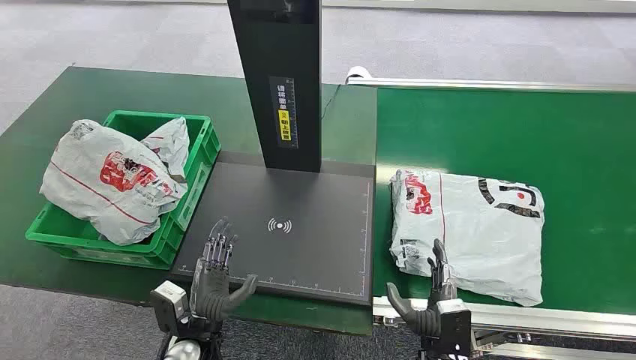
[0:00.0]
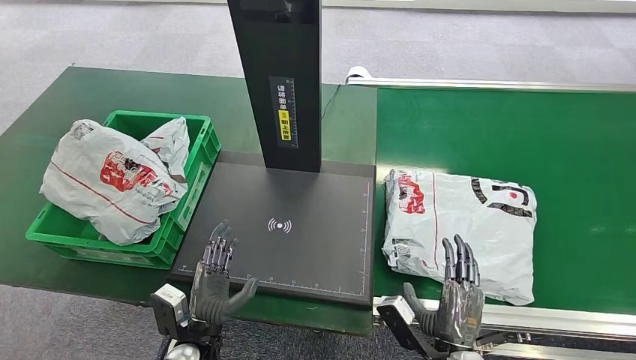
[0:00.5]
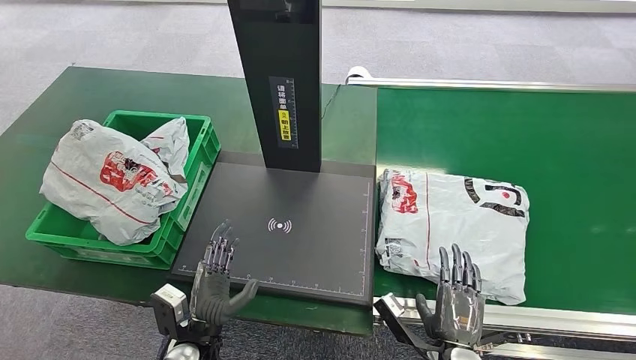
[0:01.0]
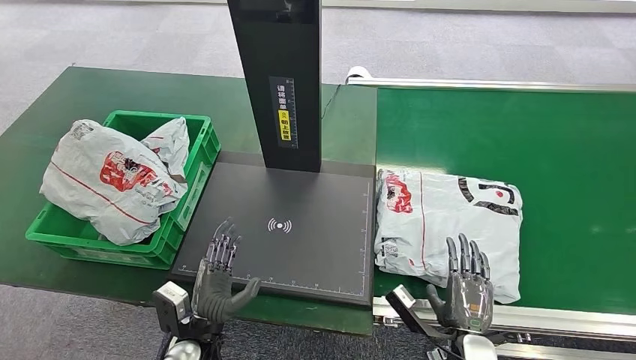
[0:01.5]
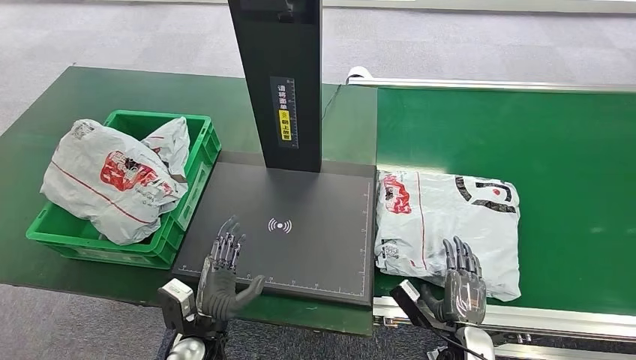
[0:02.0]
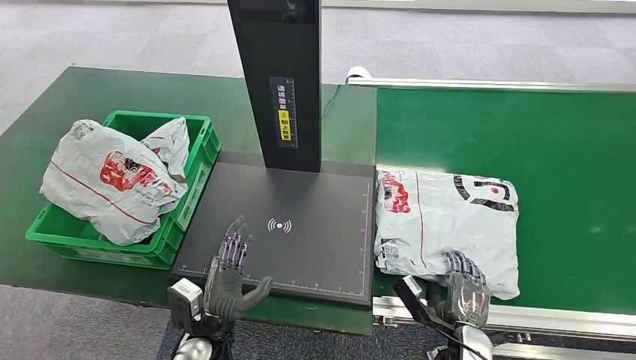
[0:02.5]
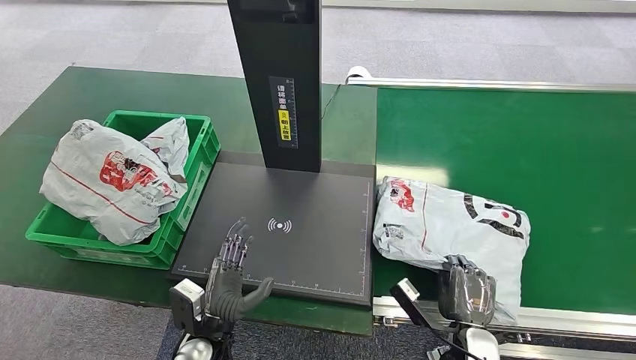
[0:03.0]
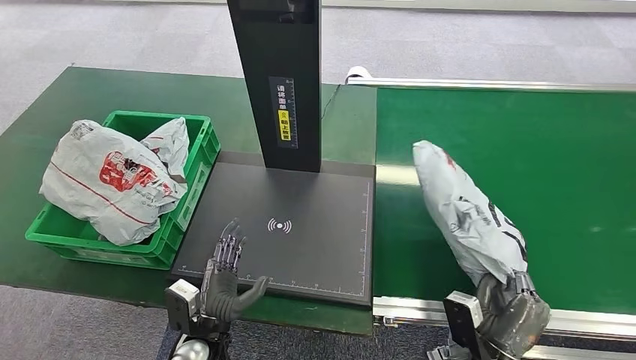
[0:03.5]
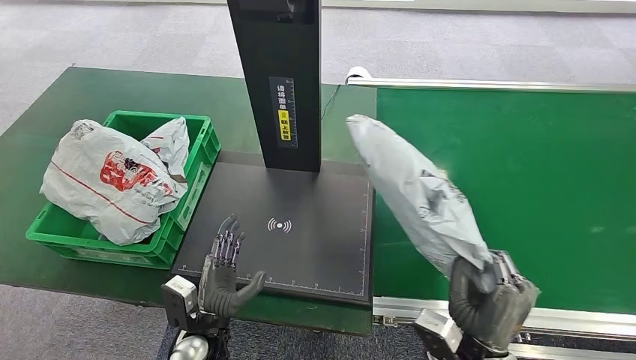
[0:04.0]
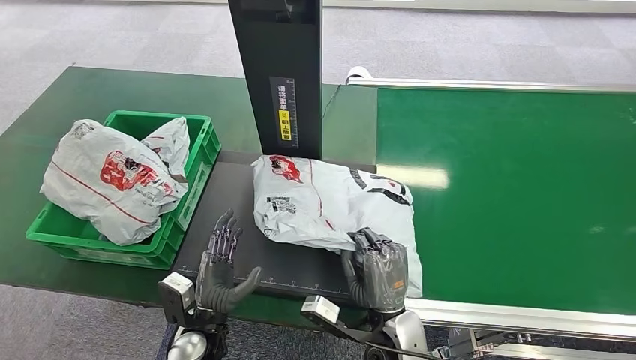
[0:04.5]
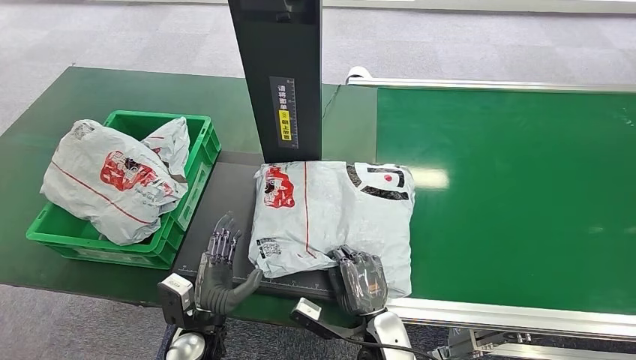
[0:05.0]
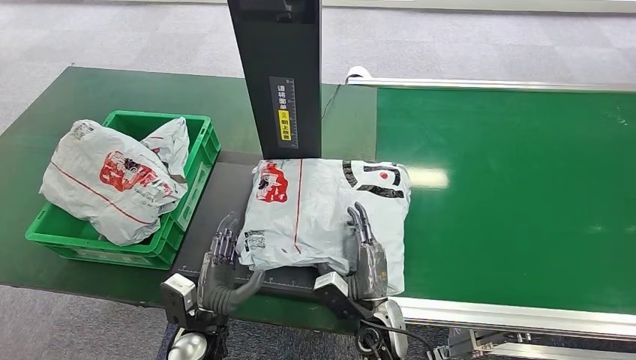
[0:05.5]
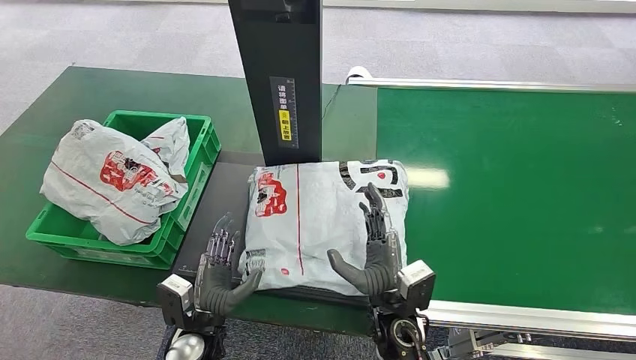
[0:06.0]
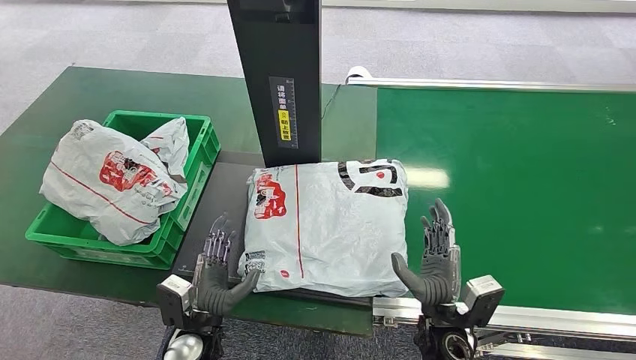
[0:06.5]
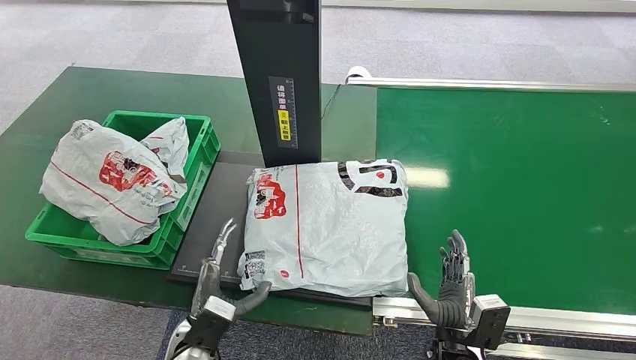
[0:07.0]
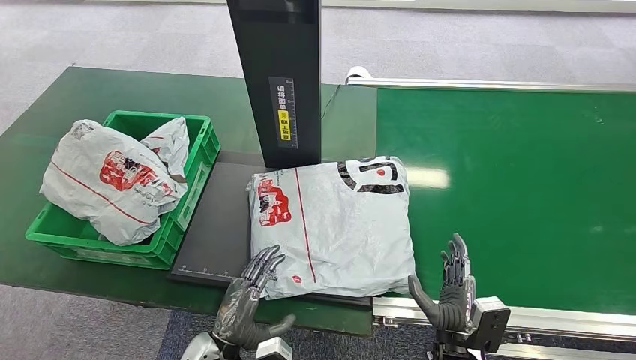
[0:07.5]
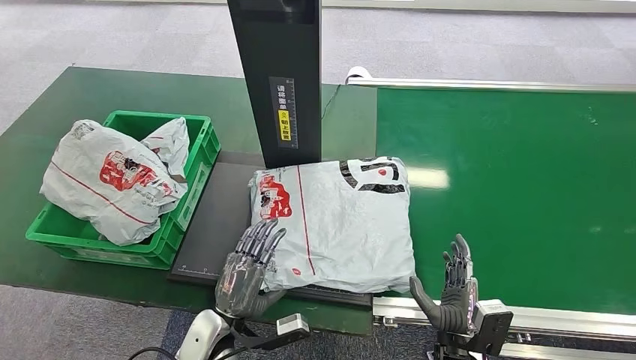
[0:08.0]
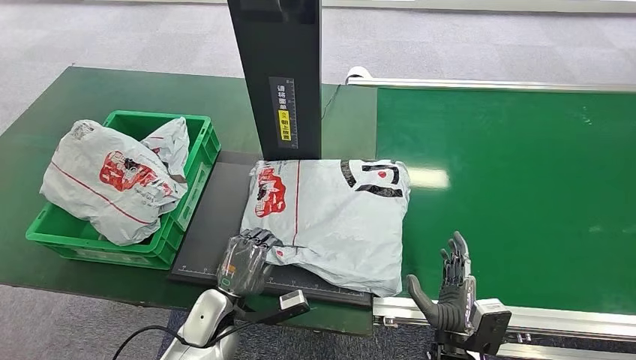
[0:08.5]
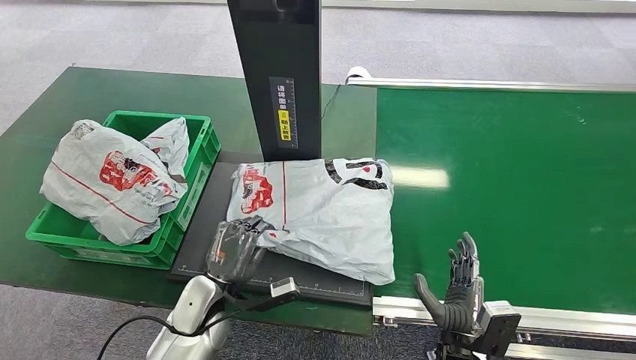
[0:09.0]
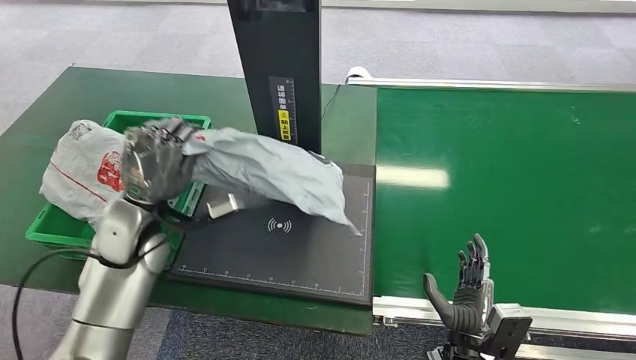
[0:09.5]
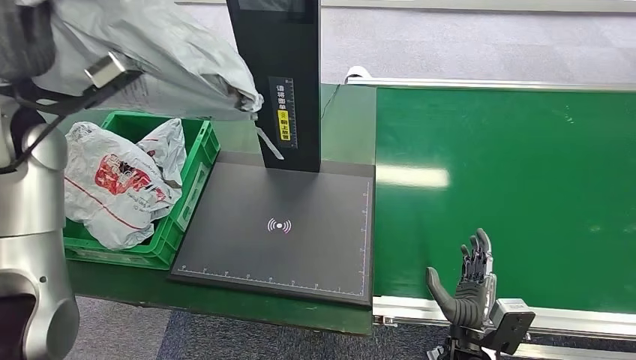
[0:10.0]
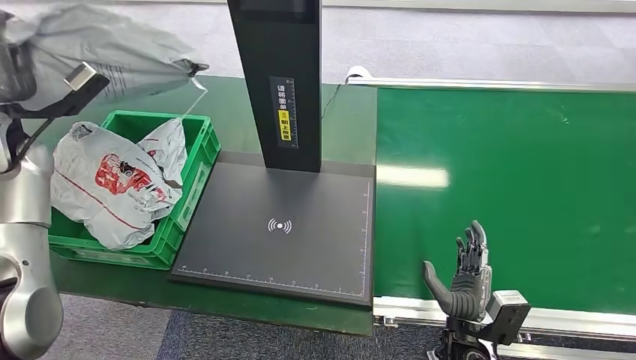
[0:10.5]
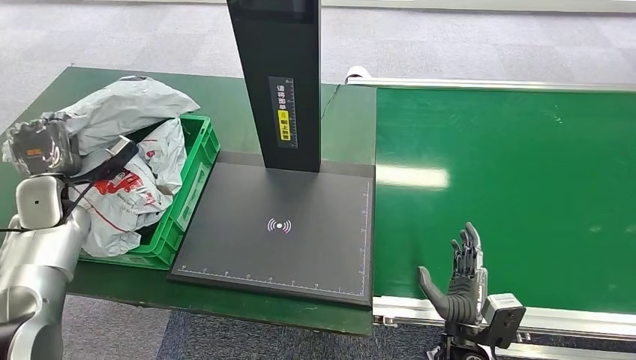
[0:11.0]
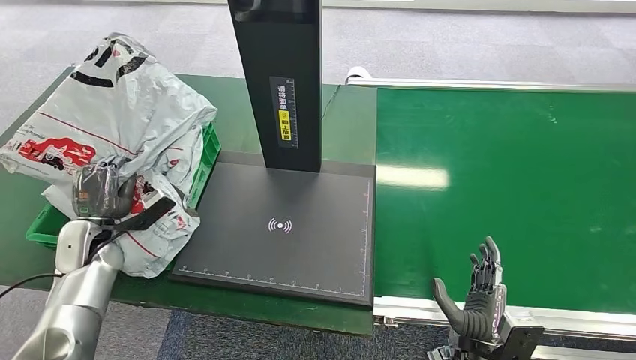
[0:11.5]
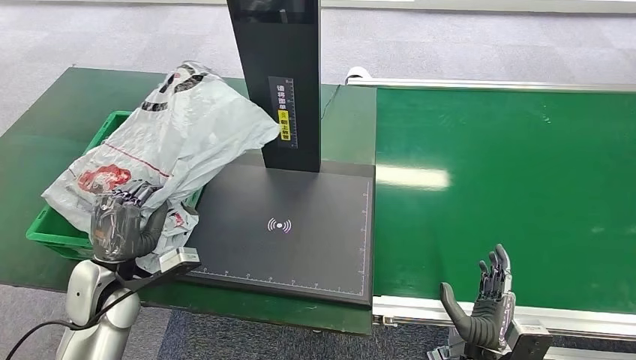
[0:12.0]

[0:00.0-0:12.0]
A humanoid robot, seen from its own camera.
Step, 0:00.0 to 0:03.5: Pick up the package from the conveyor belt.
Step, 0:04.0 to 0:06.5: Place the package onto the inbound machine.
Step, 0:07.0 to 0:09.5: Pick up the package from the inbound machine.
0:02.0 to 0:04.0: The right hand heads upward, covering roughly 10 cm.
0:04.0 to 0:06.0: The right hand shifts roughly 10 cm to the left and forward.
0:06.0 to 0:08.0: The right hand is displaced to the right, downward and backward by some 15 cm.

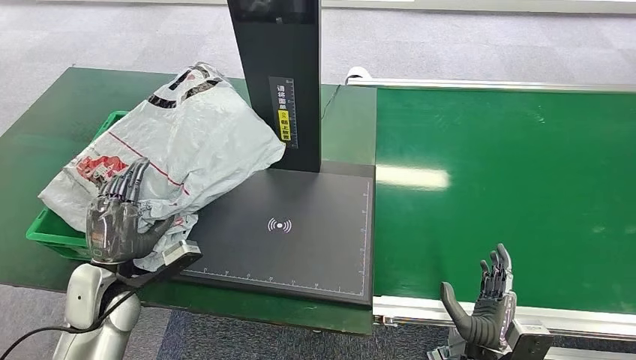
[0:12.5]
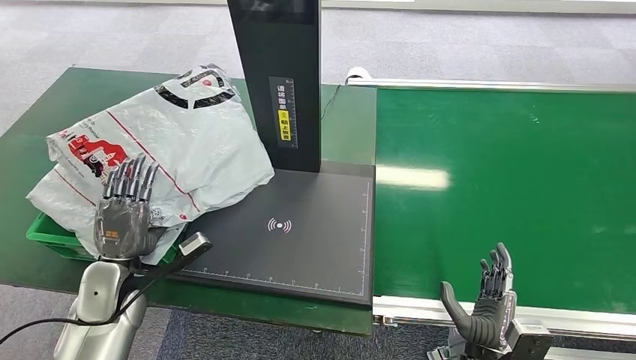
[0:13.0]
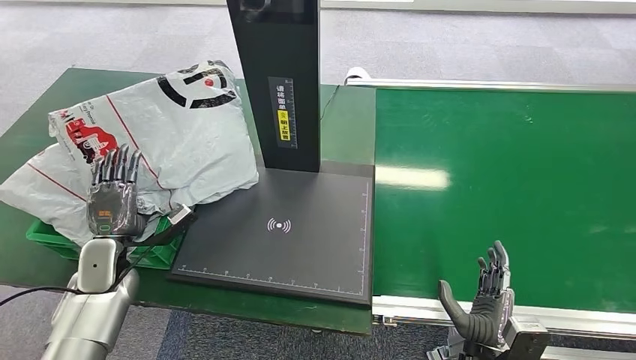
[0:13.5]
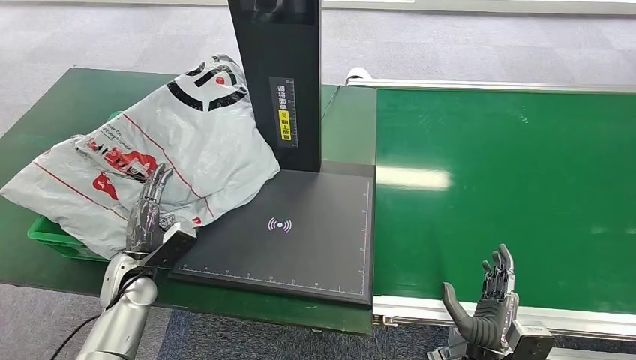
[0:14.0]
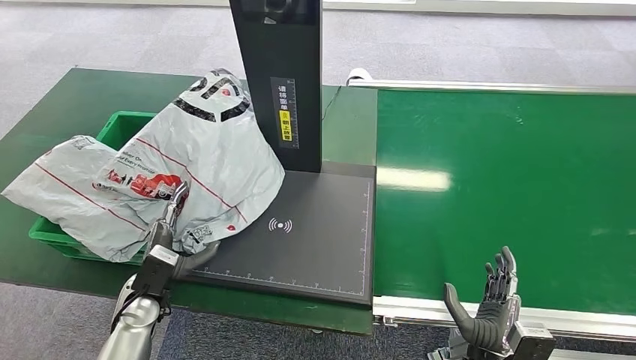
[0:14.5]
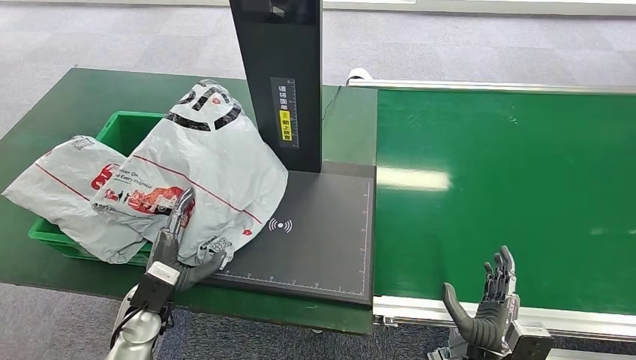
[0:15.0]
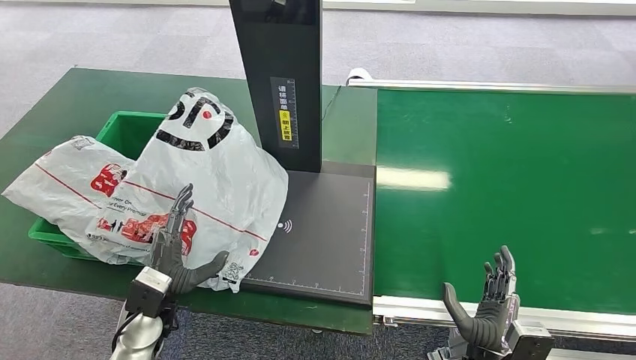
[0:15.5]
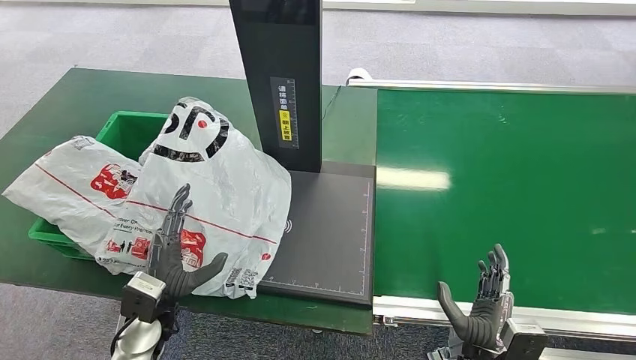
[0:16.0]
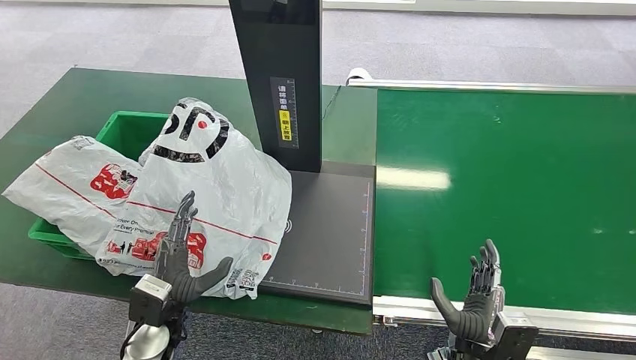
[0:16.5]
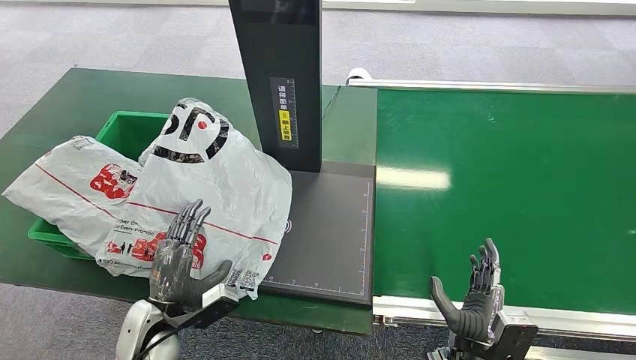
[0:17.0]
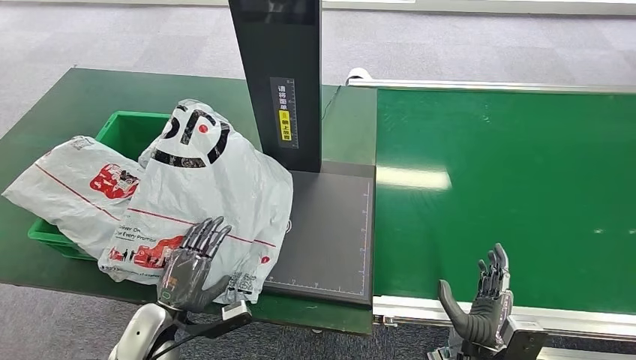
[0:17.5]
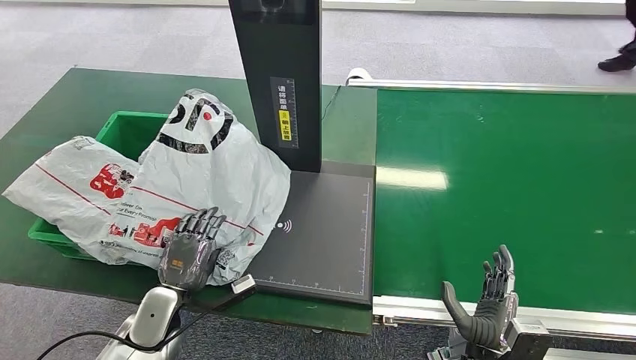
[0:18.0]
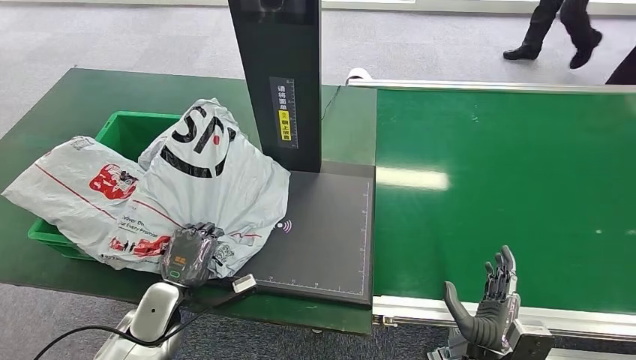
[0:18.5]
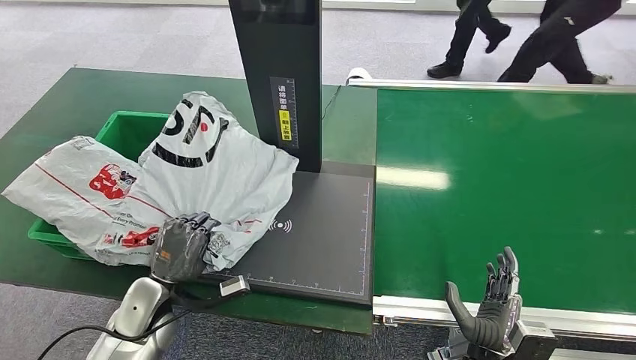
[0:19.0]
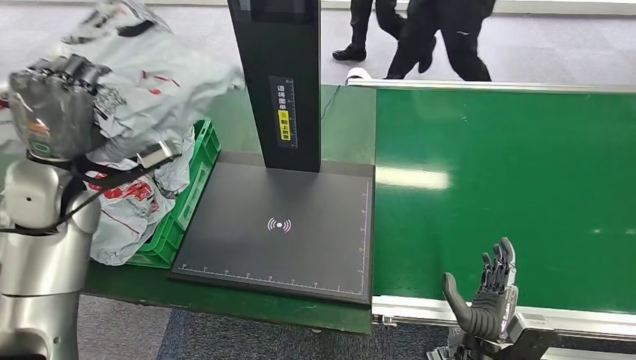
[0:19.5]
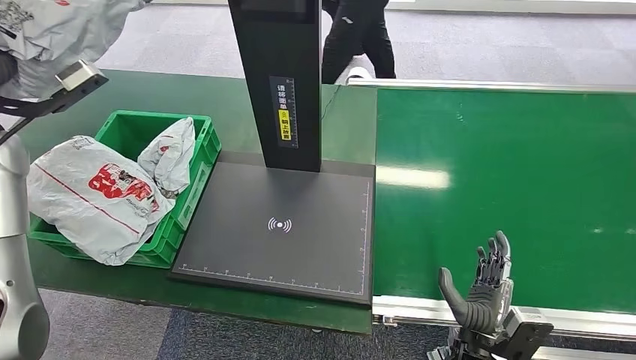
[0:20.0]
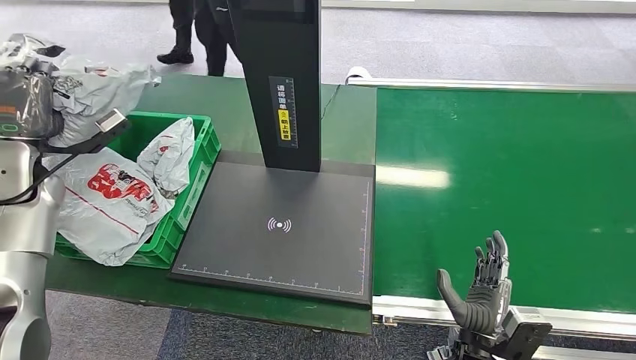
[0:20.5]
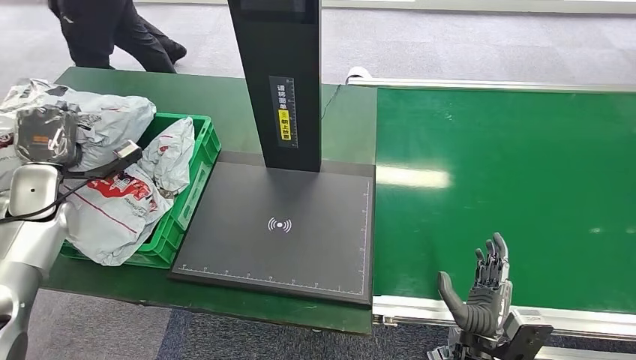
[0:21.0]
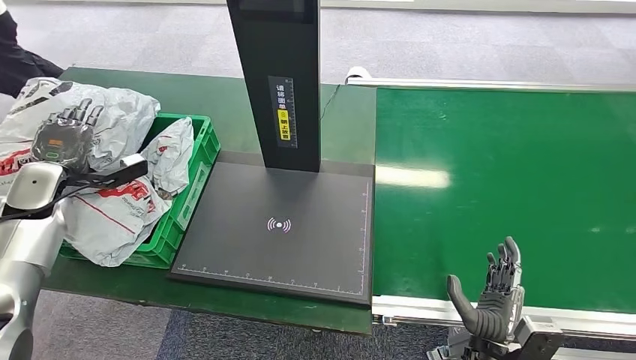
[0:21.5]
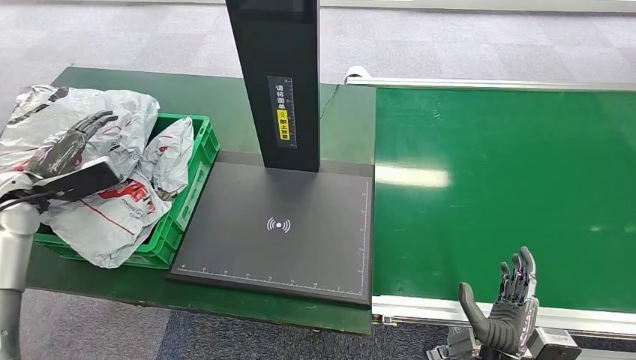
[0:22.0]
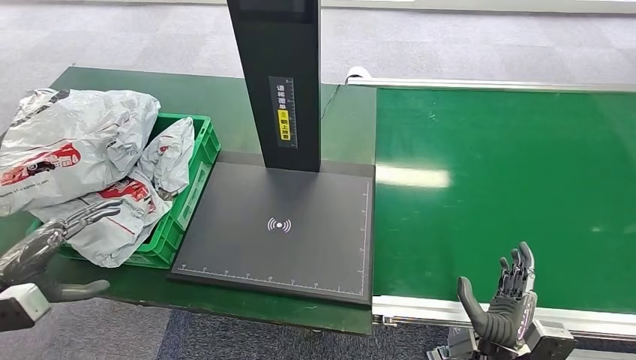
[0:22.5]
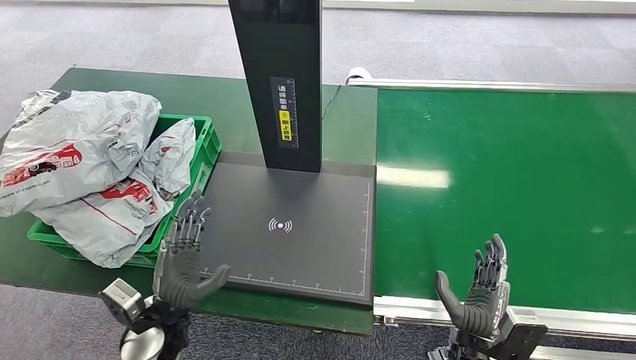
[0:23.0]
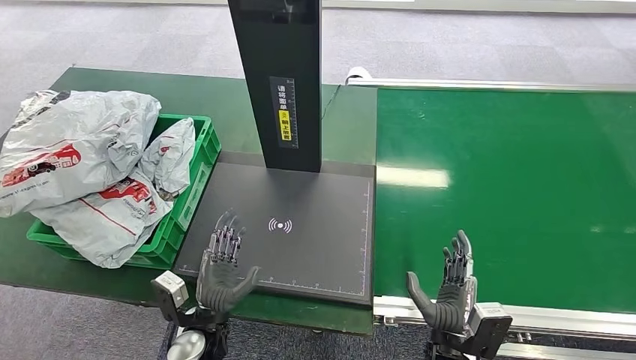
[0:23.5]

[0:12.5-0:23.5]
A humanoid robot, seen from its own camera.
Step, 0:12.5 to 0:23.5: Place the package into the parcel locker.
0:12.5 to 0:14.5: The left hand heads downward, covering roughly 10 cm.
0:14.5 to 0:16.0: The left hand ends up some 5 cm from where it was.
0:20.0 to 0:21.5: The left hand moves downward, about 20 cm.
0:21.5 to 0:23.5: The right hand shifts approximately 5 cm to the left, while the left hand moves to the right, backward and downward, approximately 40 cm.
